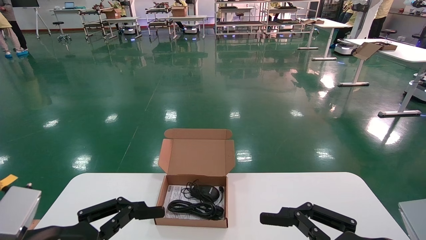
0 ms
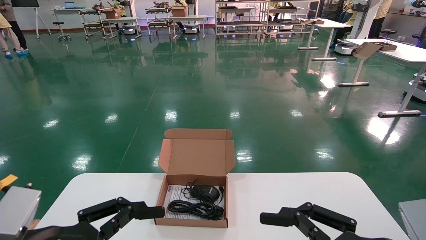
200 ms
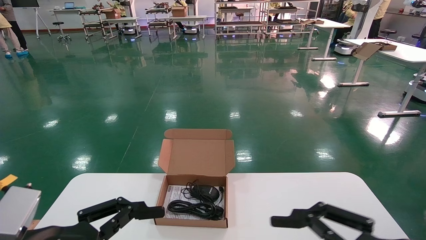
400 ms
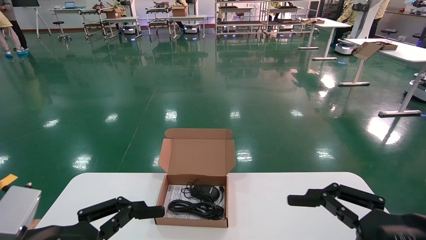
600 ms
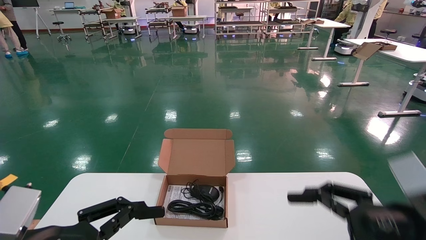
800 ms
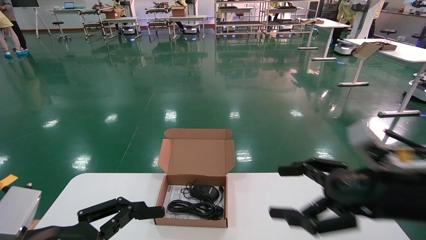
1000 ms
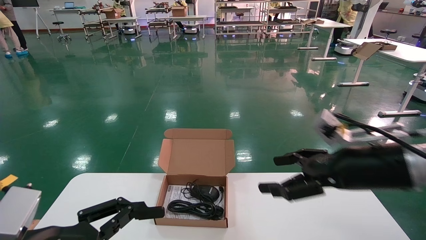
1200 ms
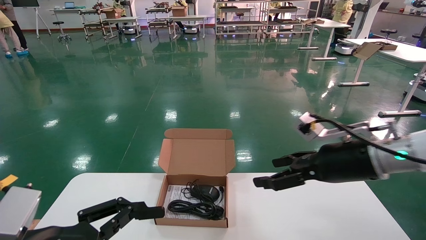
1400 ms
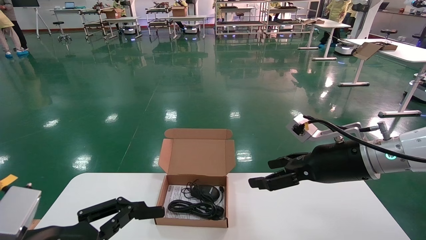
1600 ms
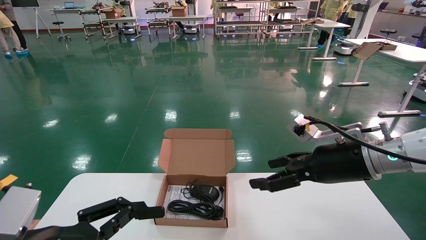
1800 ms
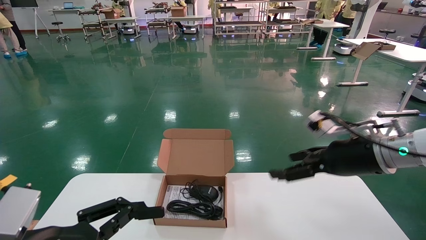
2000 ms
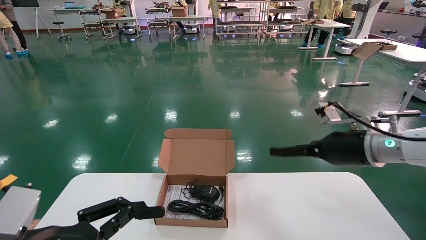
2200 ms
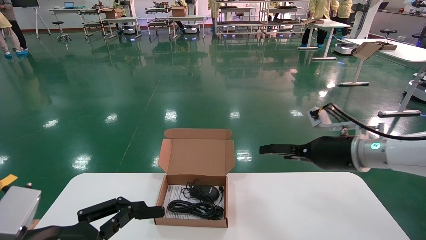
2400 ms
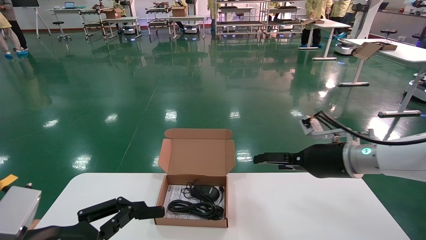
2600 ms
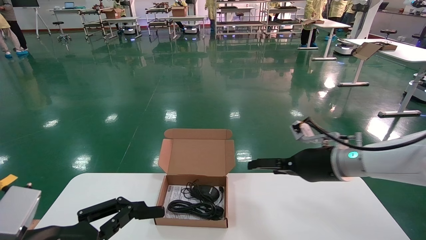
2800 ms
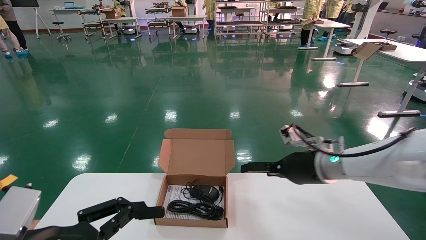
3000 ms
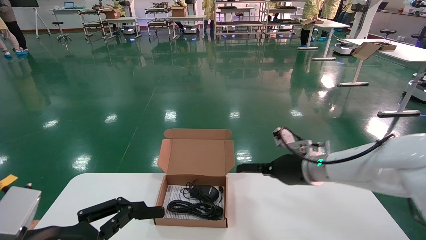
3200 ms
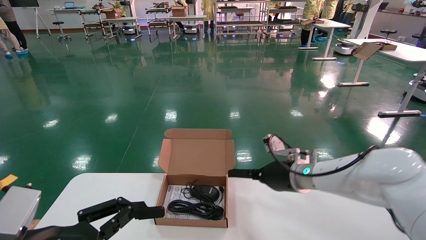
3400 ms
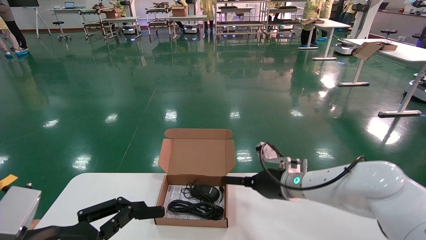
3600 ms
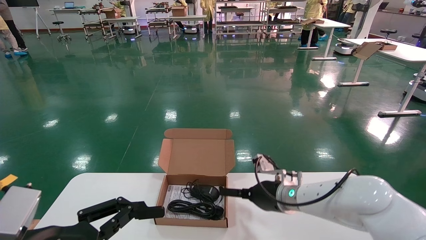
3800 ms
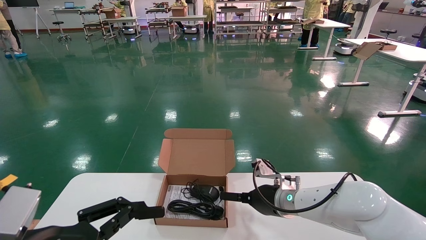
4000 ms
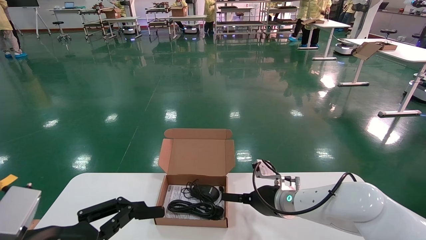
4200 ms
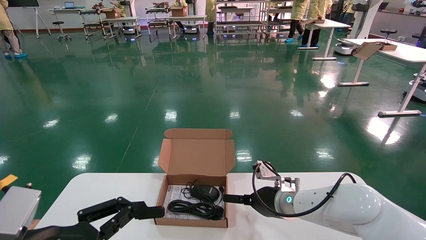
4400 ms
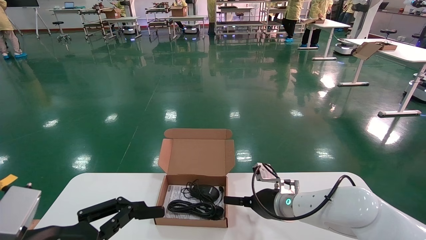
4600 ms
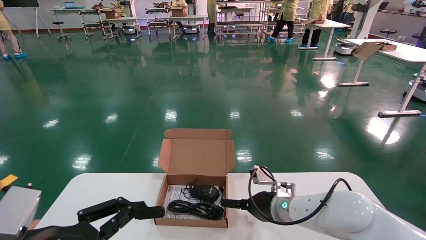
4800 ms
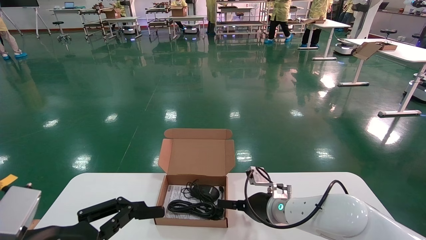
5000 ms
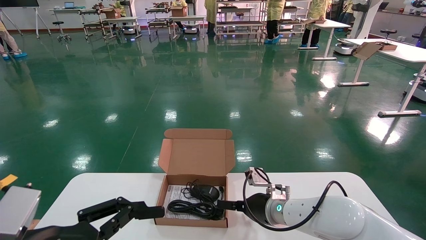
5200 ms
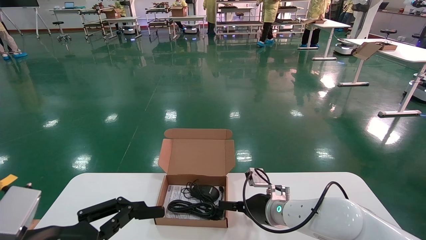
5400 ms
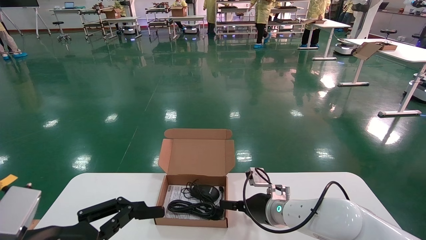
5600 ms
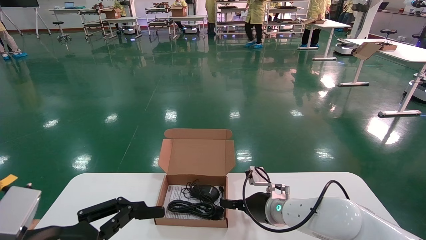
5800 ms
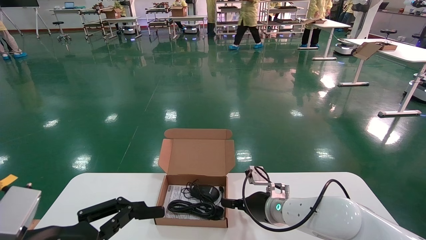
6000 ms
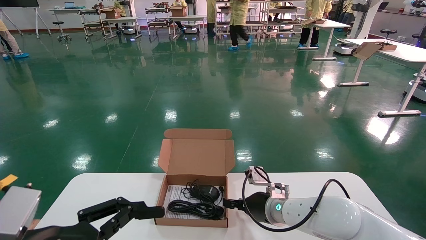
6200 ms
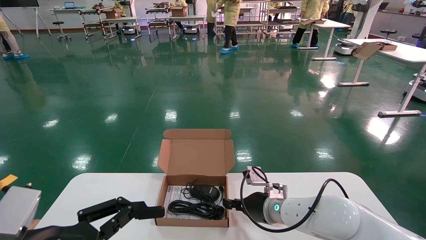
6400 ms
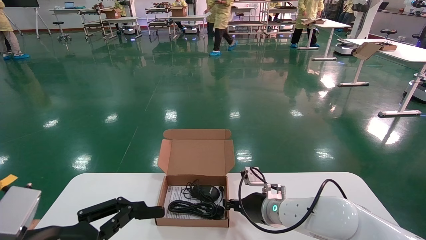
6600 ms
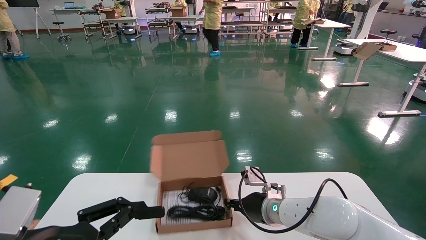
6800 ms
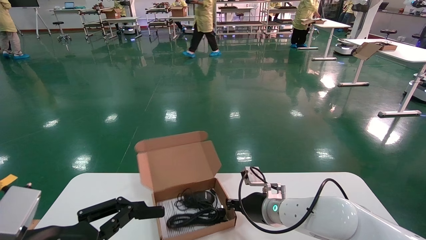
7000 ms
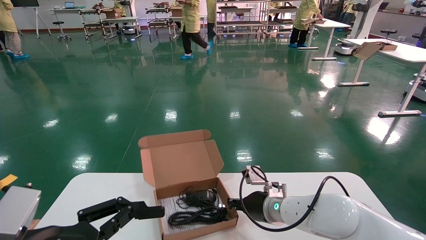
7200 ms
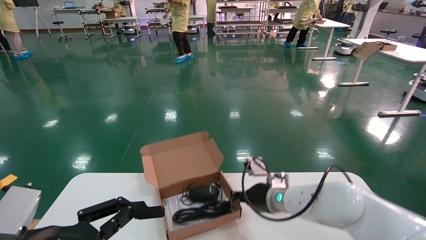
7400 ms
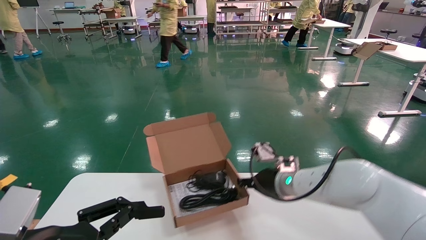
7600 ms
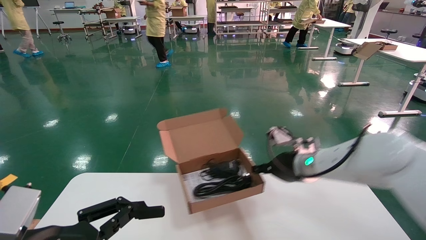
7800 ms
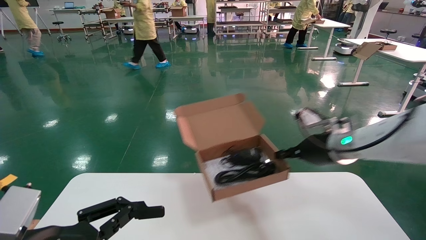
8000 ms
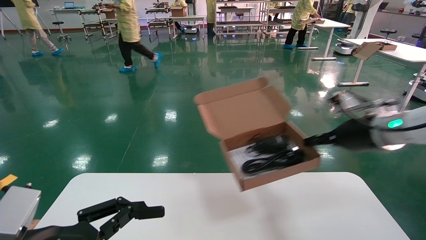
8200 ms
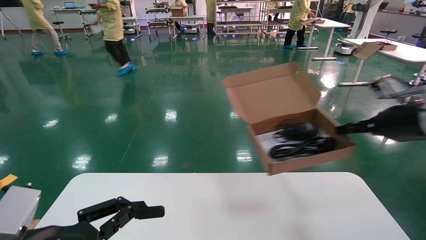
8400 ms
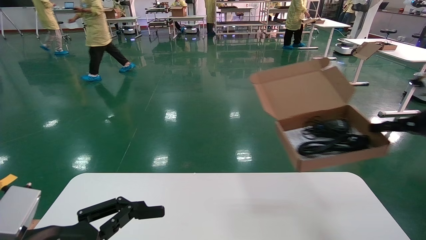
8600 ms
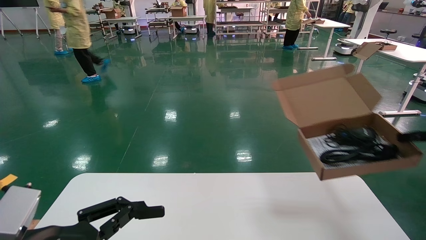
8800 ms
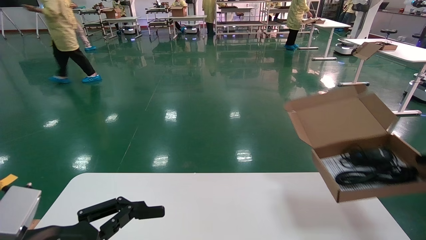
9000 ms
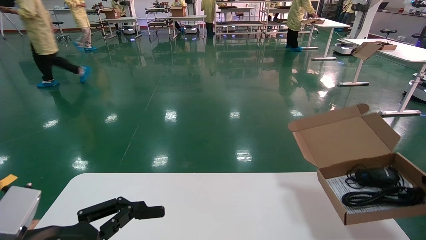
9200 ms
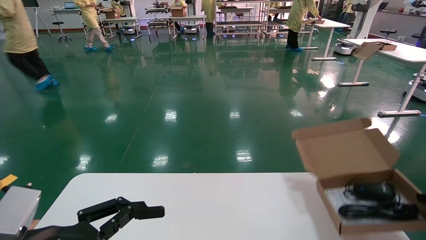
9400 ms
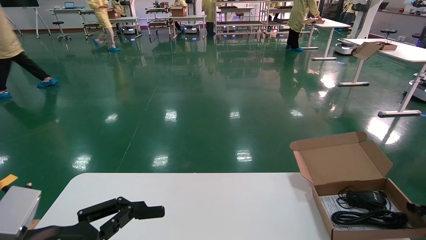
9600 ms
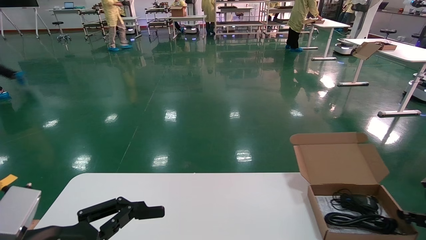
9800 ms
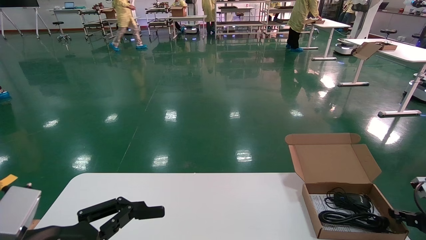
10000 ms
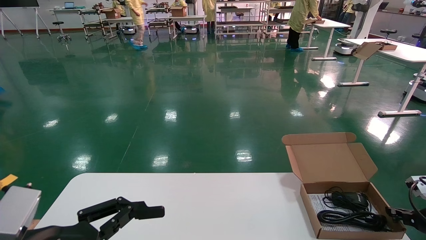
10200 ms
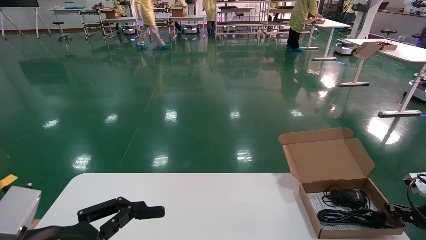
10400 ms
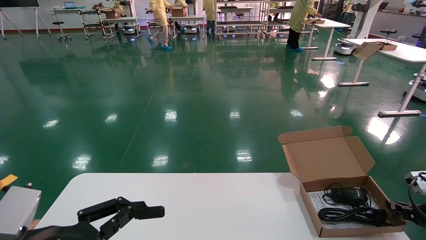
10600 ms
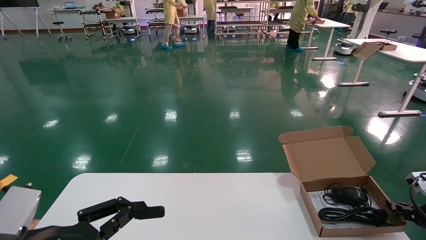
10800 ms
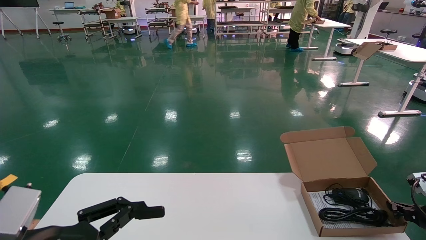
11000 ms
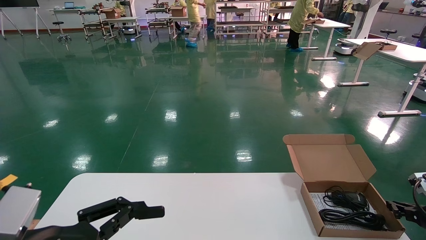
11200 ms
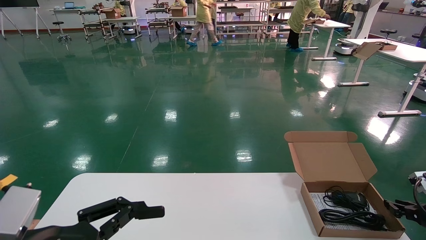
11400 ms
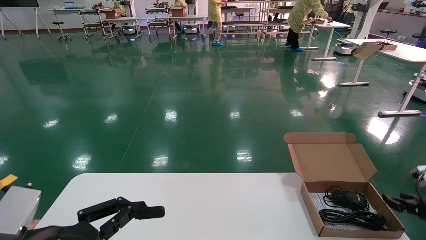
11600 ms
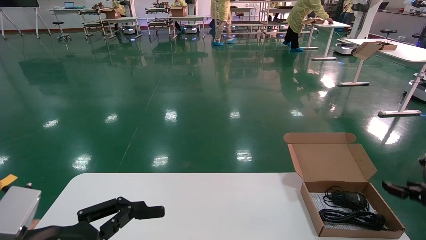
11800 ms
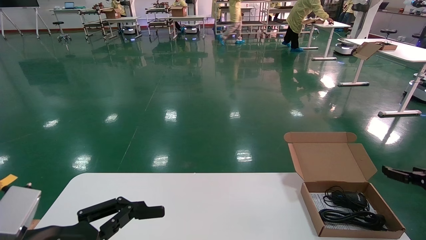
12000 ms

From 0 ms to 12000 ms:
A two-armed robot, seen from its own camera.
Task of the whole recording: move the position of the storage box with accessories on the table.
Step, from 800 ms to 6800 ms: Grab and pick up the open mouse box from the accessory packaging area.
Step, from 7000 ms to 11400 ms: Place the open mouse box onto the operation table.
From 0 ms to 1600 ms: The right gripper is displaced forward and upward by about 20 cm.
From 1600 ms to 3000 ms: The right gripper travels forward by some 10 cm.
From 3000 ms to 4400 ms: The right gripper is displaced downward and to the left by some 10 cm.
From 4400 ms to 6000 ms: There are only small adjustments of the grippers.
From 6000 ms to 7600 ms: The right gripper goes some 10 cm upward, and closes its fingers.
From 7600 ms to 9000 ms: The right gripper travels to the right by some 35 cm.
From 9000 ms to 10400 ms: The right gripper travels downward and forward by about 15 cm.
From 10400 ms to 12000 ms: The right gripper moves upward, approximately 5 cm, and opens its fingers.

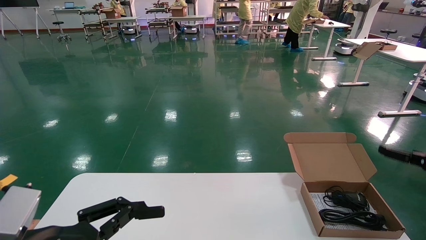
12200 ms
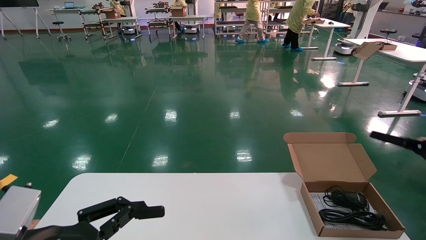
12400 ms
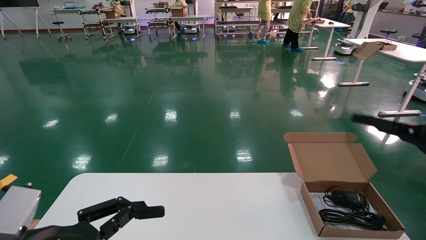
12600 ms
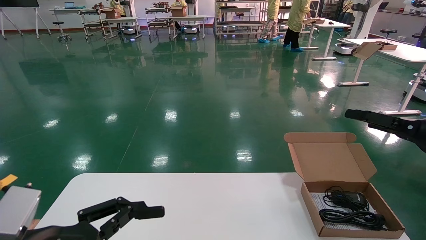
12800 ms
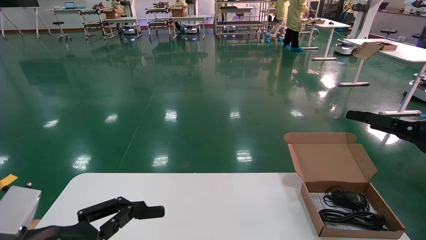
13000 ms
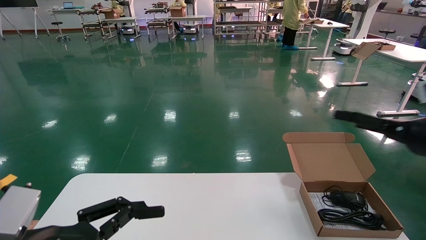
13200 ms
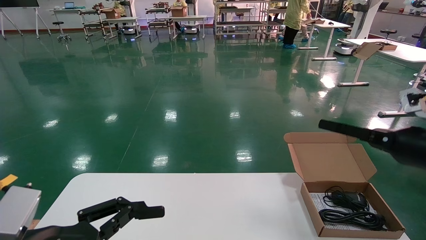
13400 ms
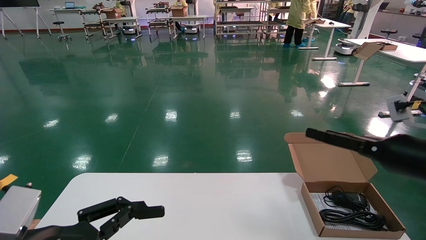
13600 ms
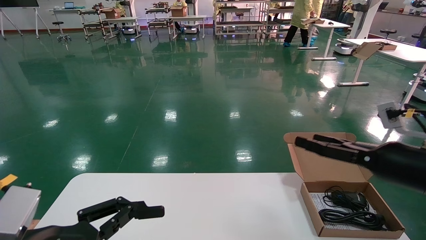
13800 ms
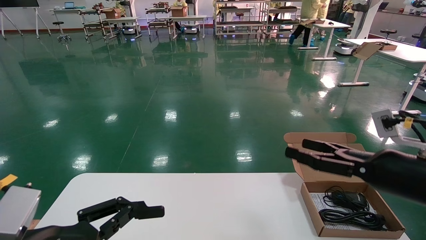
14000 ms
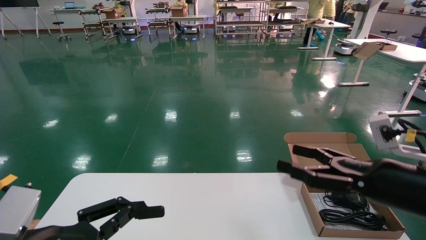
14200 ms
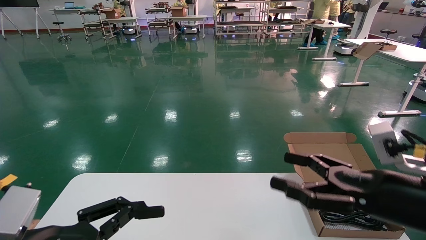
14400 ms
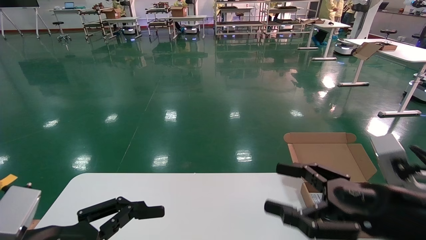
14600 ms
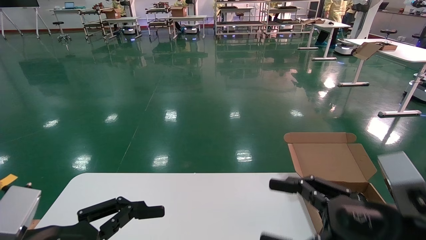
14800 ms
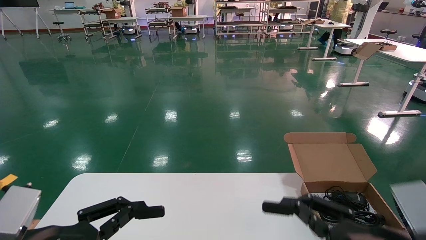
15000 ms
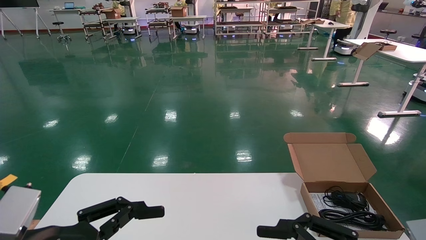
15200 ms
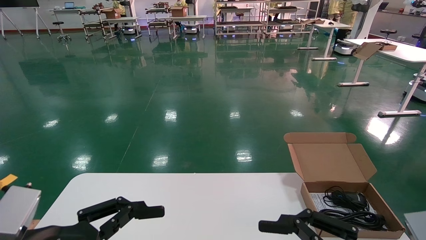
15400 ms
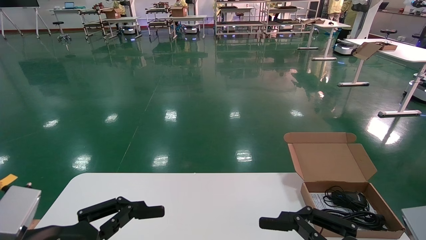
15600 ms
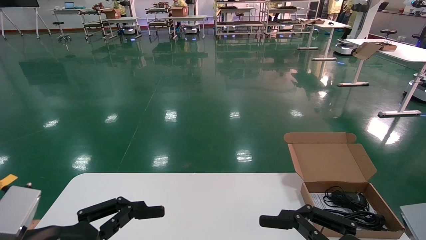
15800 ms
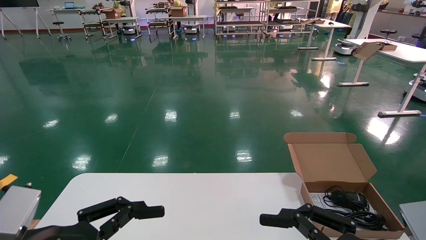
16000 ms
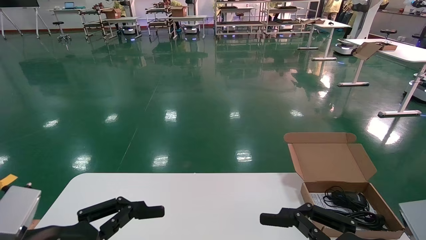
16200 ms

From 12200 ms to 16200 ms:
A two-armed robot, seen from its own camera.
Task of the whole recording: move the position of the storage box with accessories on the table.
From 12200 ms to 13600 ms: The right gripper moves to the left and backward, approximately 15 cm.
From 13600 ms to 14800 ms: The right gripper goes about 15 cm backward, to the left and downward.
From 14800 ms to 16200 ms: The grippers stay close to where they were, moving slightly.
